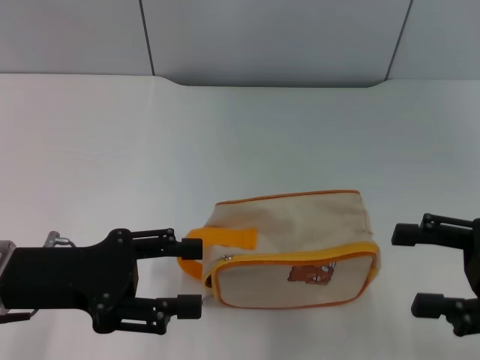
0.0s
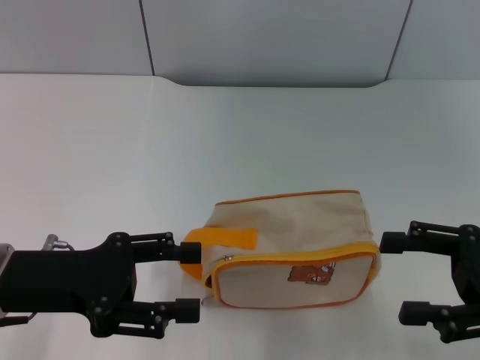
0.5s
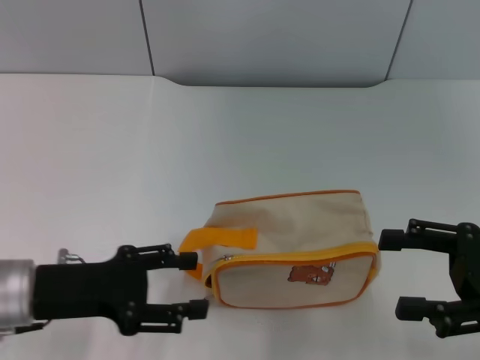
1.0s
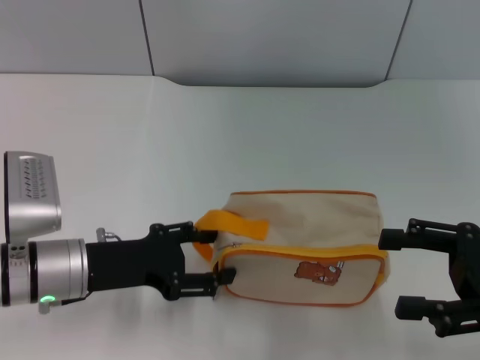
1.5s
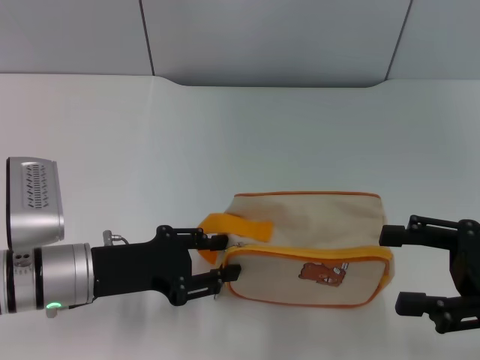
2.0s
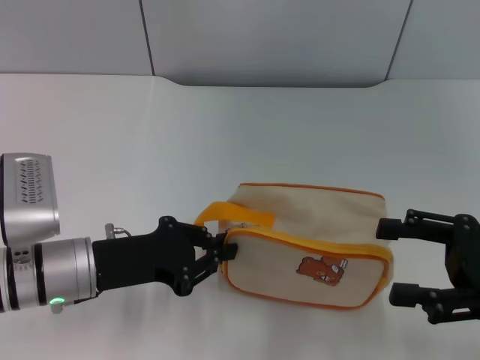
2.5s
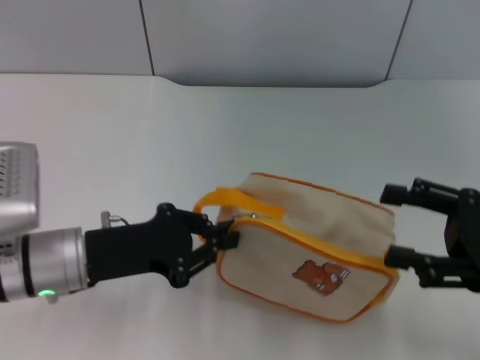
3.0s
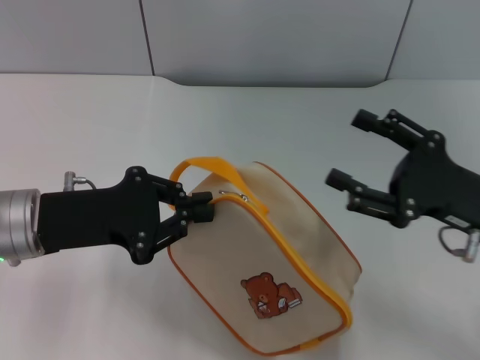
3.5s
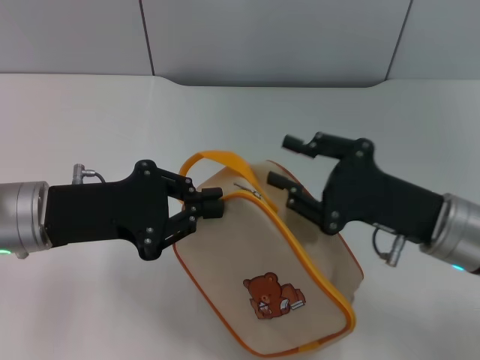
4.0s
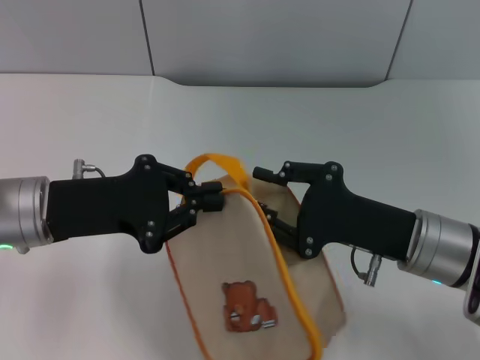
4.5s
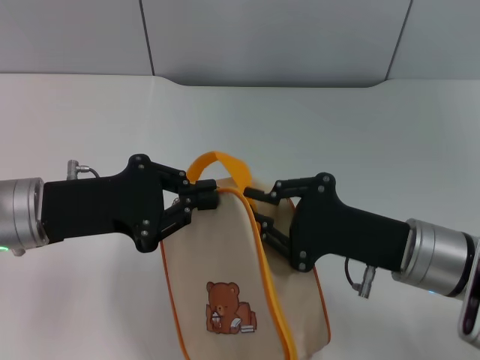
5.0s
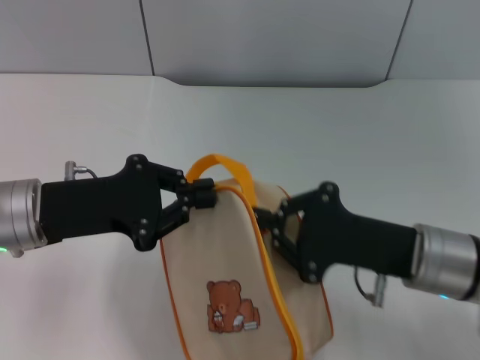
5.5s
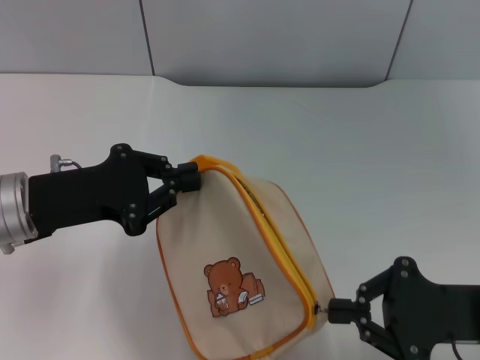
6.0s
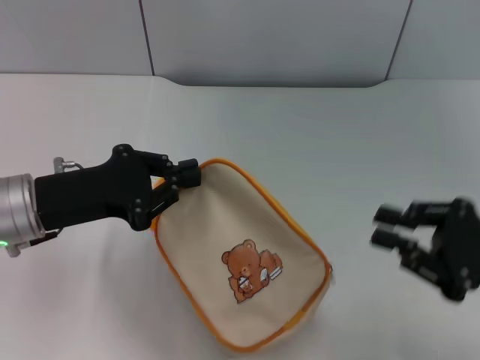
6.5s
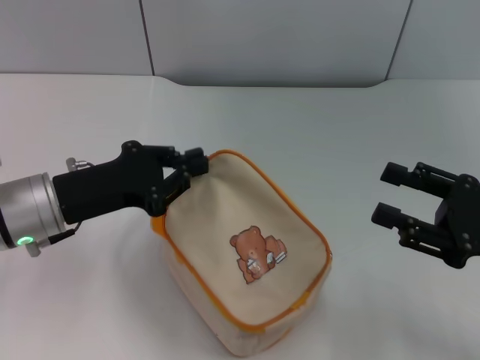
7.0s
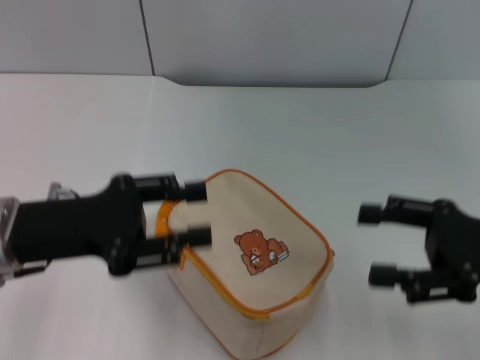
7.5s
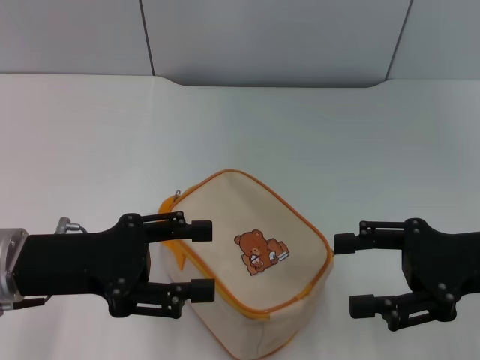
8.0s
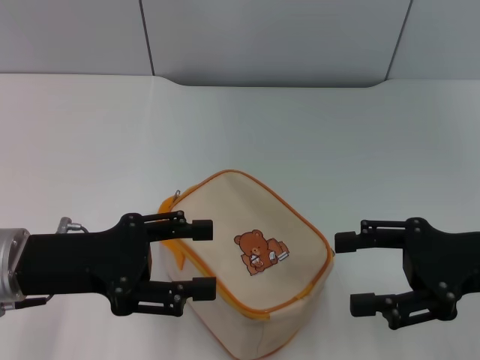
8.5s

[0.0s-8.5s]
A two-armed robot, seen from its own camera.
Step, 0.0s to 3.0s: Pick up the bag with left gripper.
Step, 4.0s to 6.0s: Unzip the zipper of bag with right gripper.
0.0s to 2.0s: The left gripper travels downward by approximately 5 cm.
2.0s to 4.0s: The right gripper goes about 10 cm to the left. Meanwhile the left gripper shifts some 5 cm upward, and closes its fingers.
4.0s to 6.5s: The right gripper shifts about 10 cm to the right and backward, and closes its fingers.
6.5s to 8.5s: The left gripper opens, while the right gripper opens its fingers.

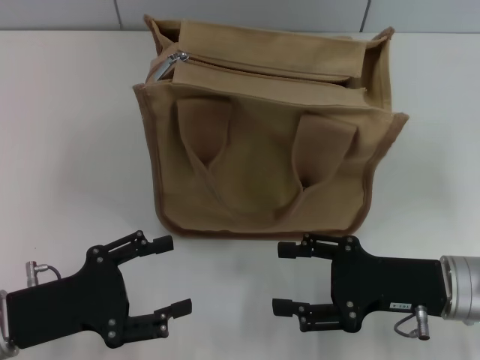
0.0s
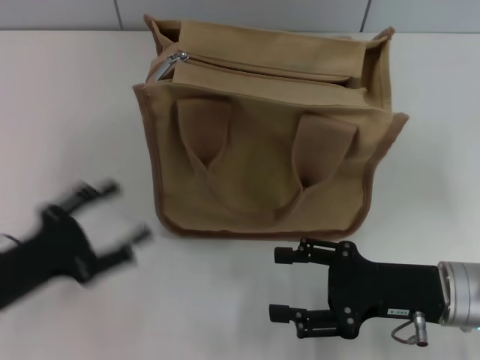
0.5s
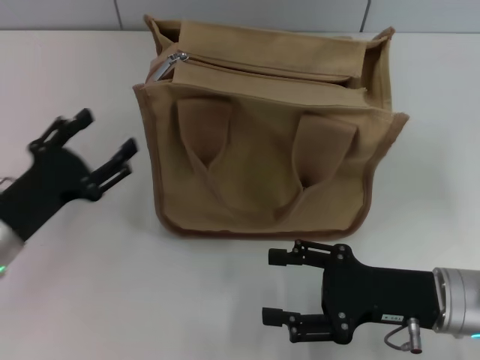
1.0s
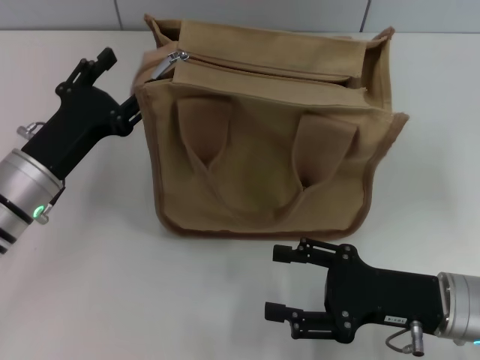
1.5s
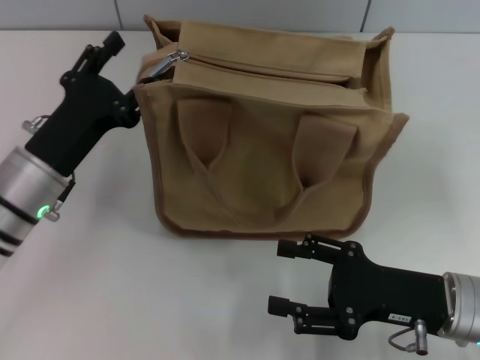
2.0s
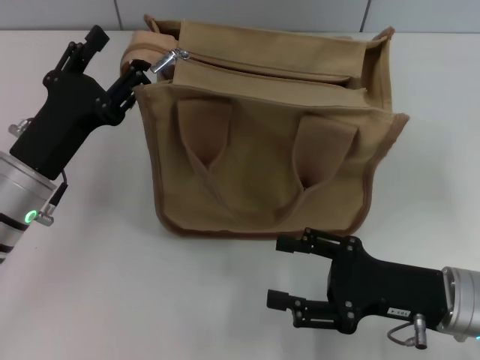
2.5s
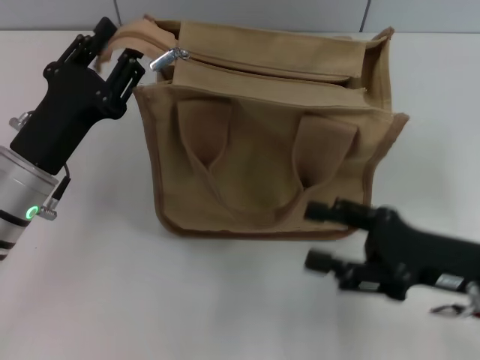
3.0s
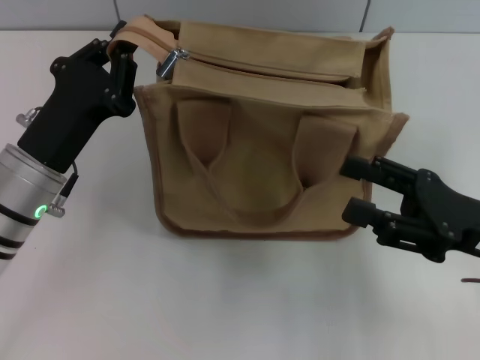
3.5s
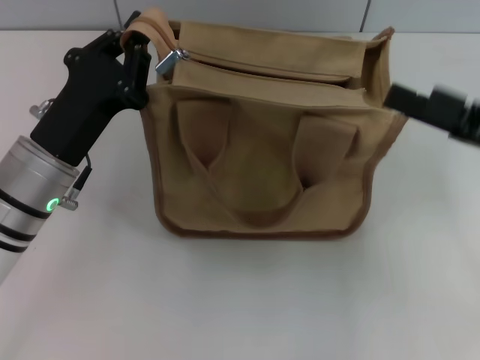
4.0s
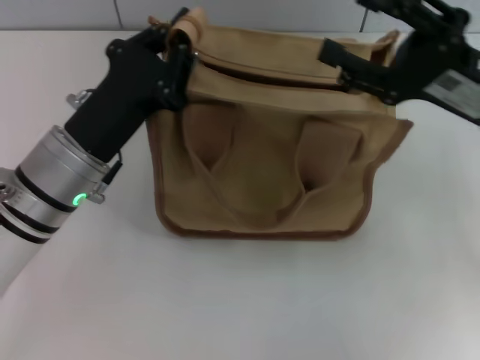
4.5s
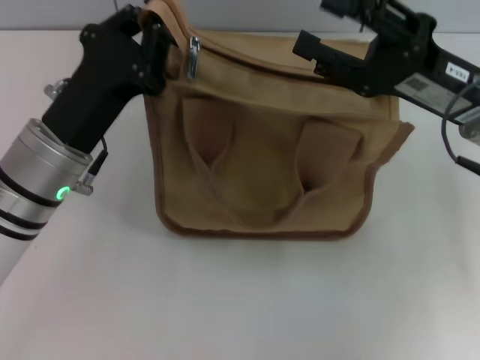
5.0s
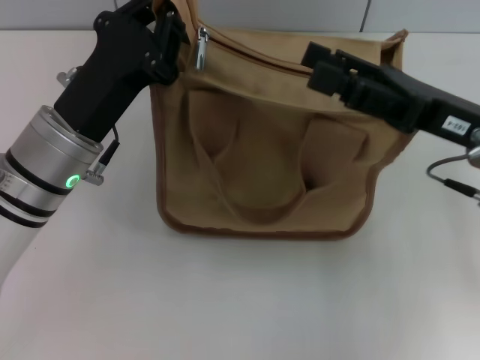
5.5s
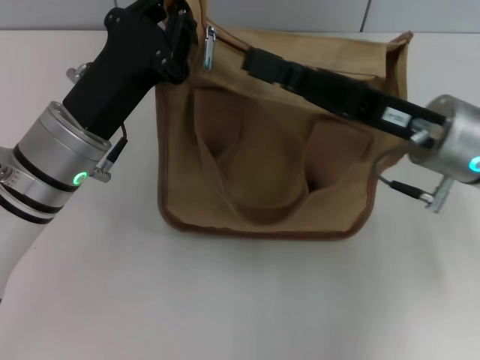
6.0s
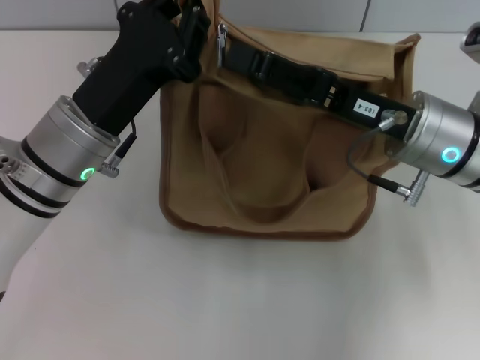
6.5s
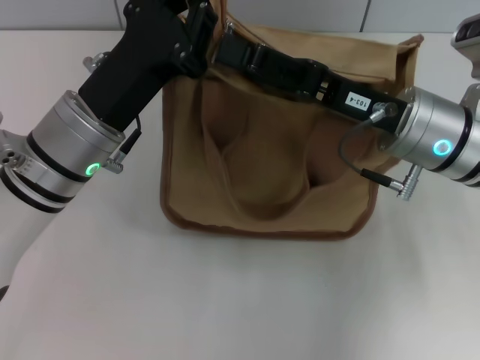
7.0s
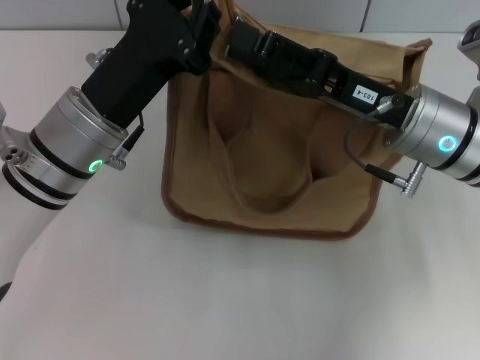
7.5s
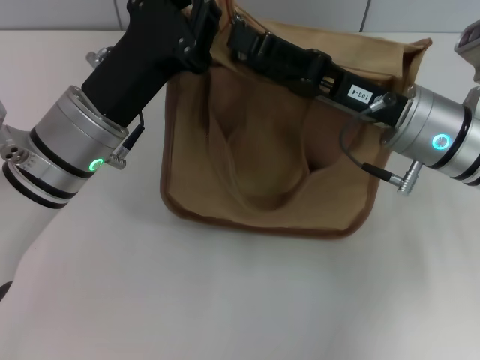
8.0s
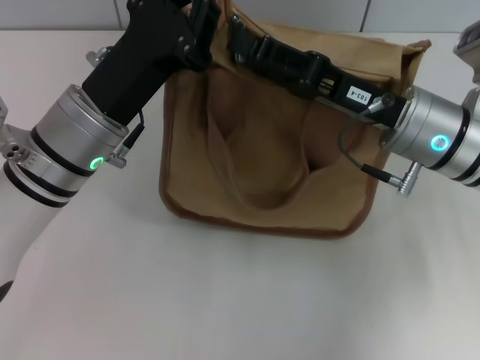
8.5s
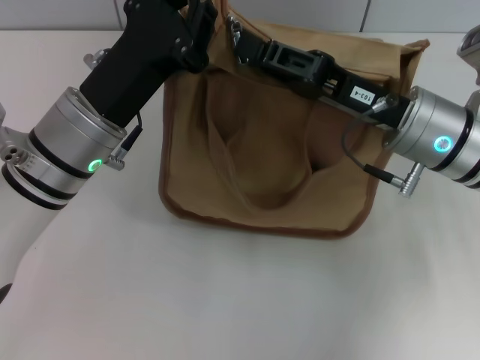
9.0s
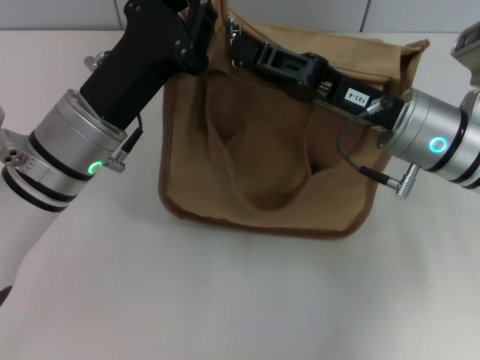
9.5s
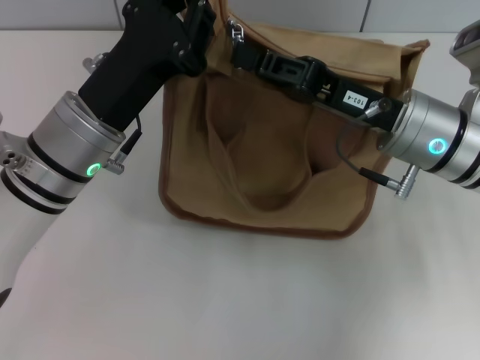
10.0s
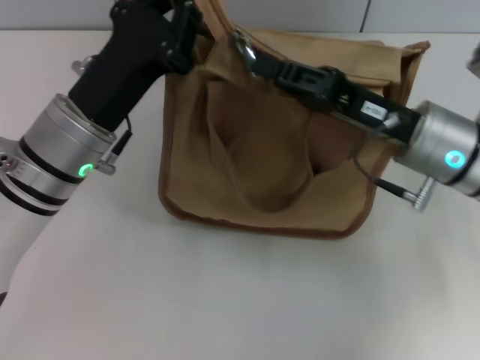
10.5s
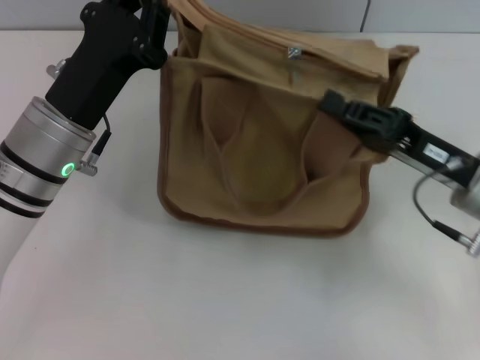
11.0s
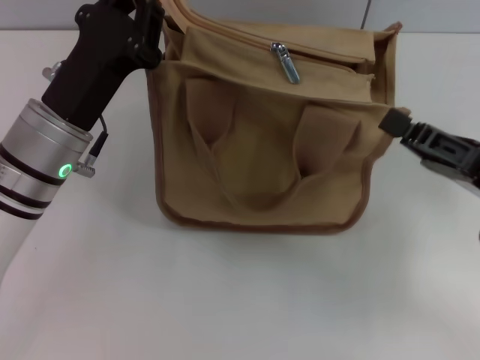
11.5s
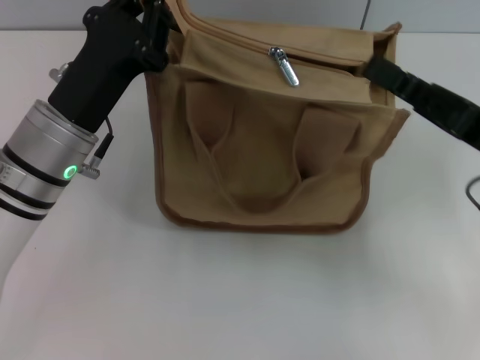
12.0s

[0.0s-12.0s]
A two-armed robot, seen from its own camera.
0.0s to 2.0s: The left gripper is displaced forward by roughly 10 cm.
2.0s to 4.0s: The right gripper moves upward, to the right and forward, roughly 15 cm. The left gripper closes its fingers.
4.0s to 6.0s: The right gripper goes roughly 10 cm to the left.
8.0s to 10.0s: The right gripper closes up.
10.0s to 12.0s: The right gripper heads to the right, covering some 10 cm.

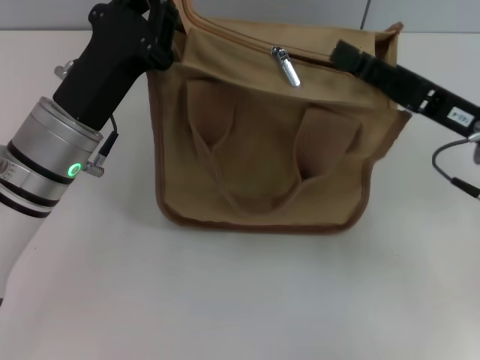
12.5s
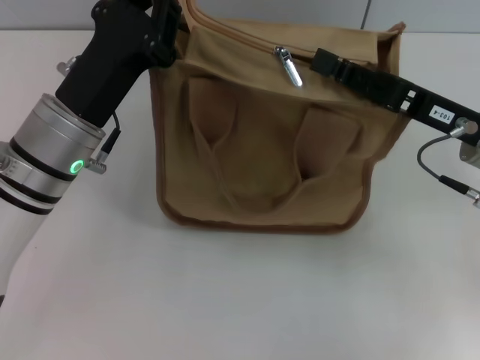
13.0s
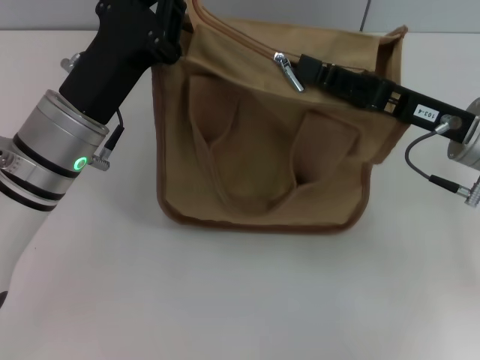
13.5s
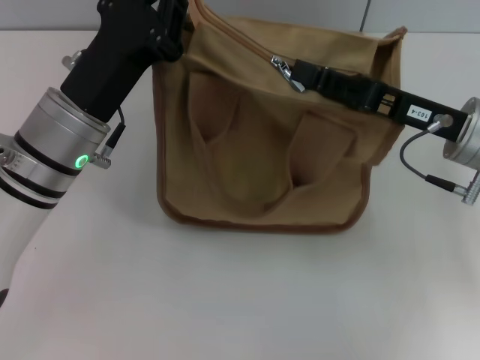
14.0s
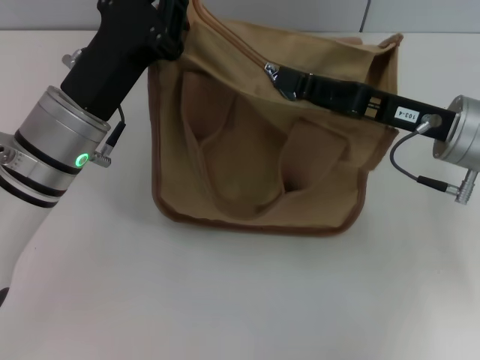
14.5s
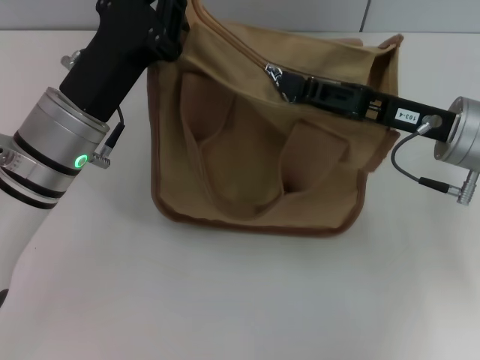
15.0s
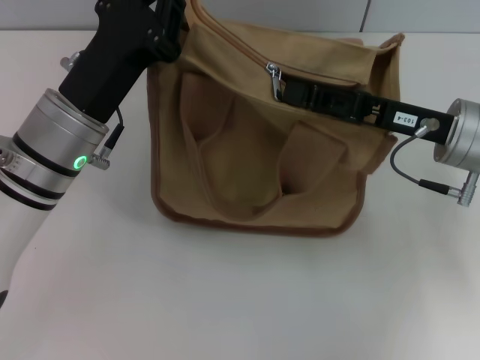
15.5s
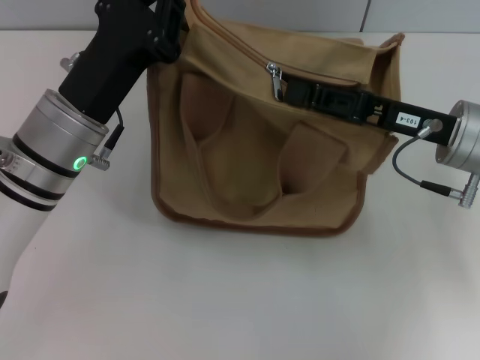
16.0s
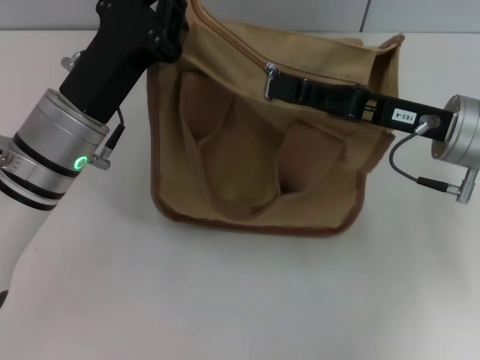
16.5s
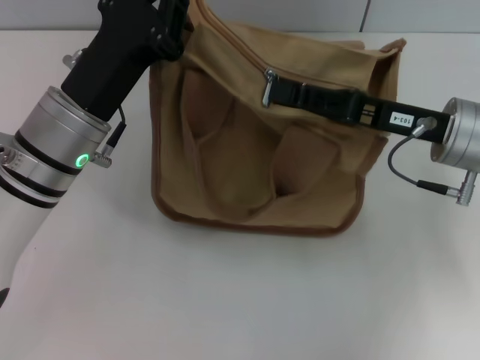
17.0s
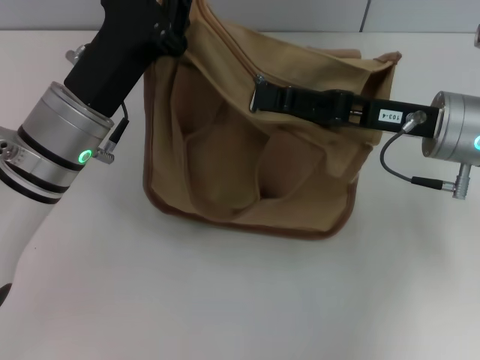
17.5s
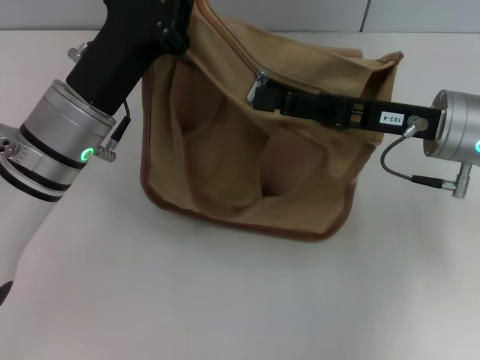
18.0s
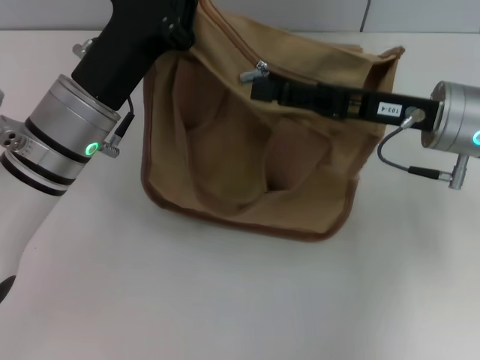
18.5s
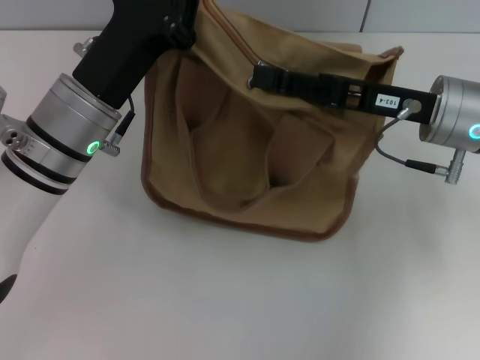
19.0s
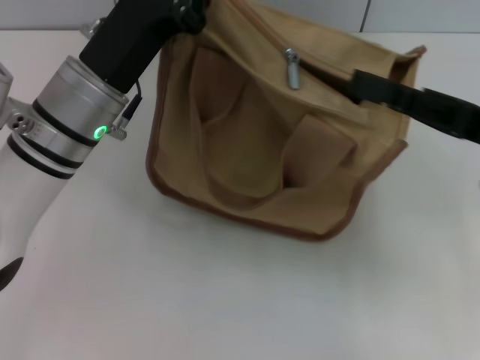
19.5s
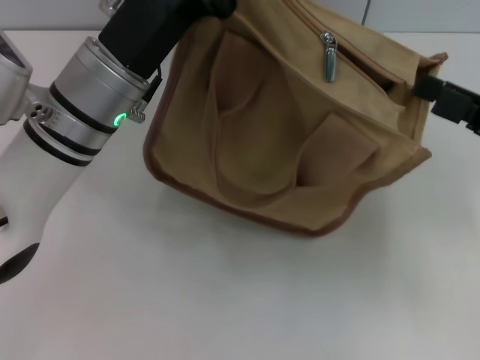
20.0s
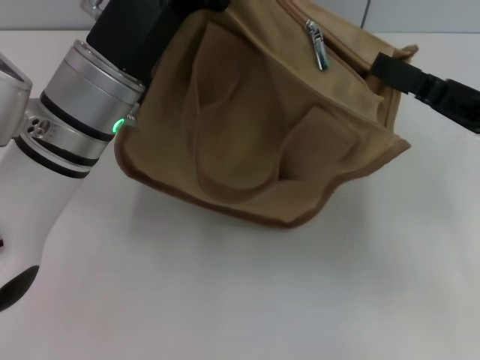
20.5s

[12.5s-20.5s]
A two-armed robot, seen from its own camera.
12.5s to 14.5s: The grippers stay close to where they were, moving slightly.
14.5s to 16.5s: The right gripper closes, then opens again.
16.5s to 18.5s: The right gripper opens.
18.5s to 20.5s: The right gripper travels to the right and backward by approximately 10 cm.
